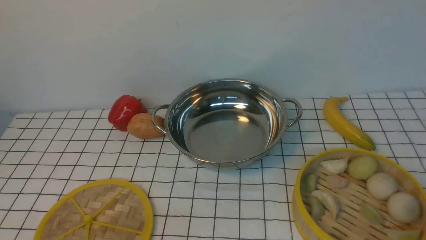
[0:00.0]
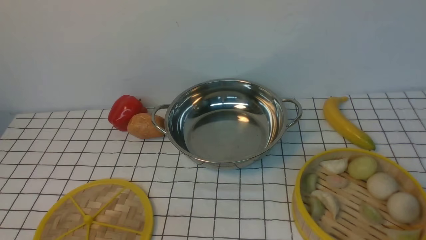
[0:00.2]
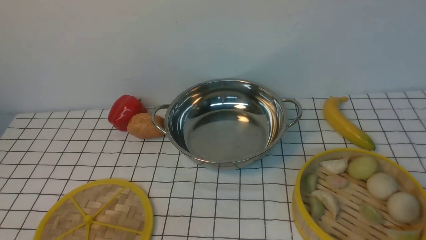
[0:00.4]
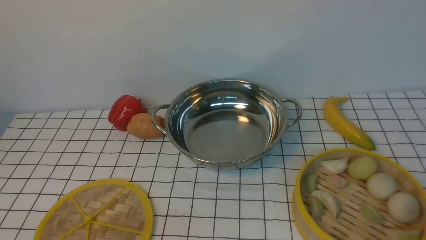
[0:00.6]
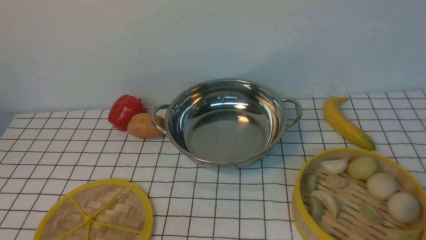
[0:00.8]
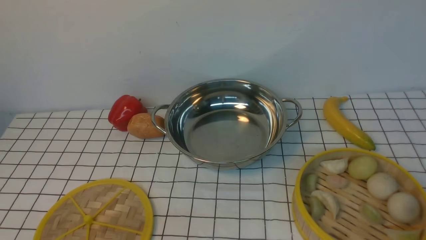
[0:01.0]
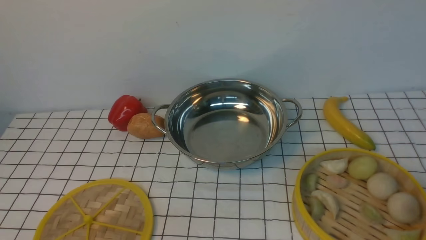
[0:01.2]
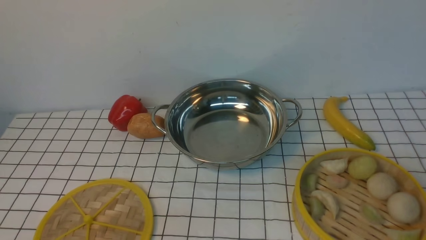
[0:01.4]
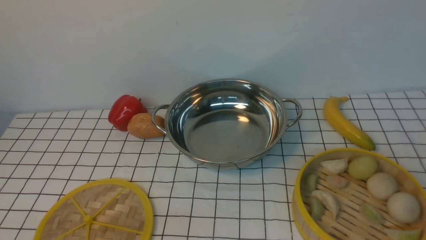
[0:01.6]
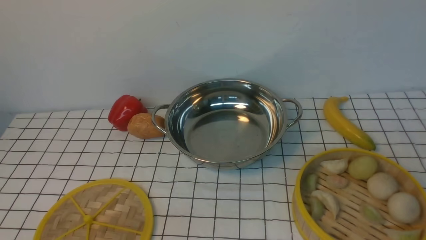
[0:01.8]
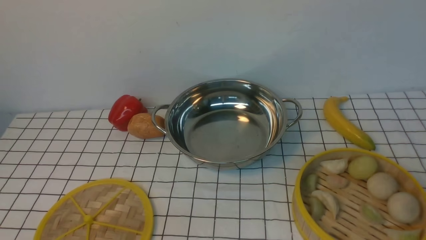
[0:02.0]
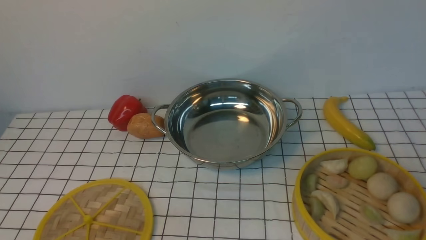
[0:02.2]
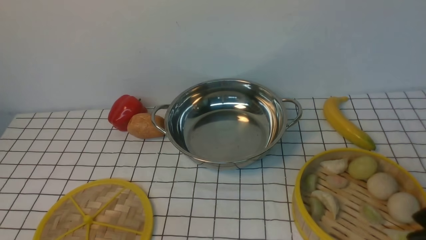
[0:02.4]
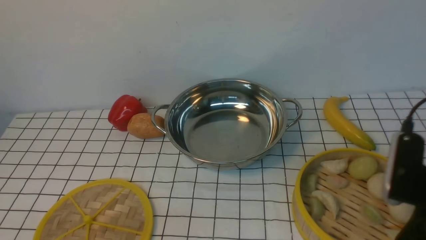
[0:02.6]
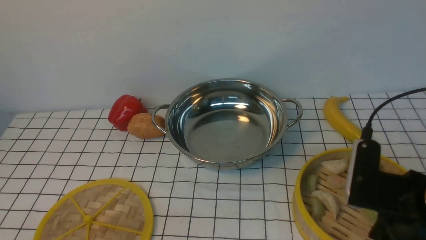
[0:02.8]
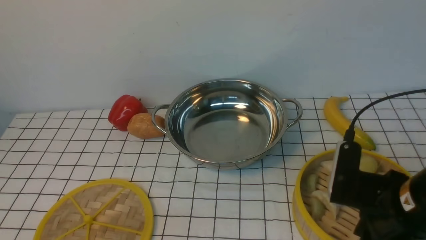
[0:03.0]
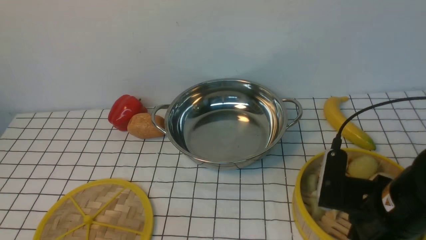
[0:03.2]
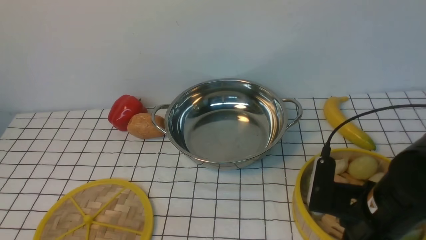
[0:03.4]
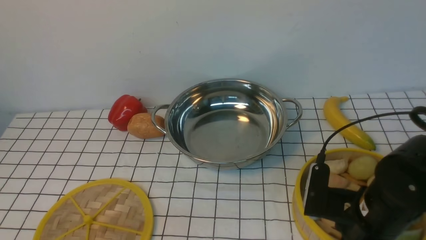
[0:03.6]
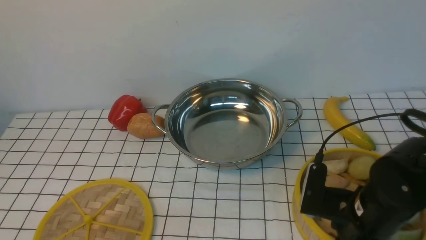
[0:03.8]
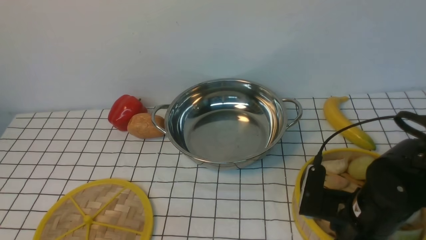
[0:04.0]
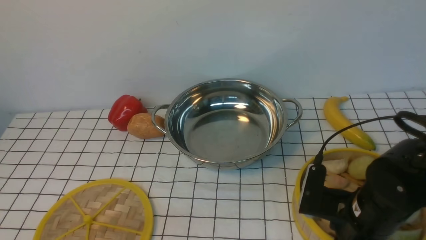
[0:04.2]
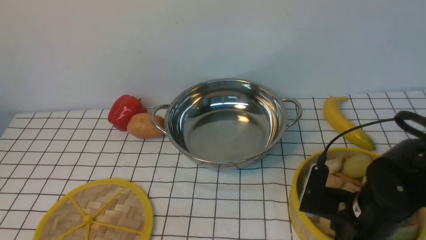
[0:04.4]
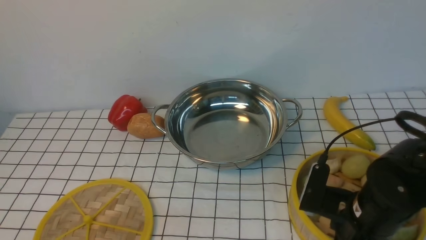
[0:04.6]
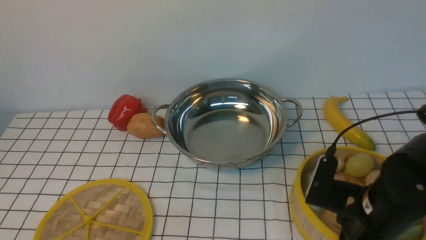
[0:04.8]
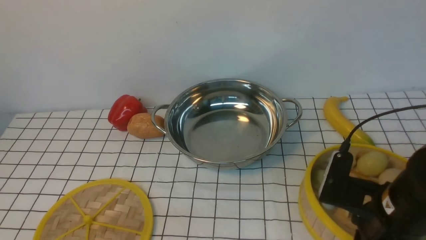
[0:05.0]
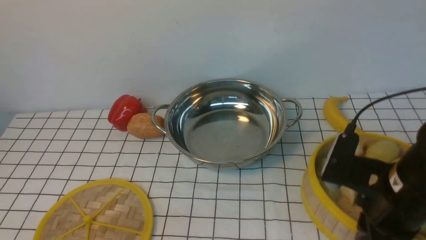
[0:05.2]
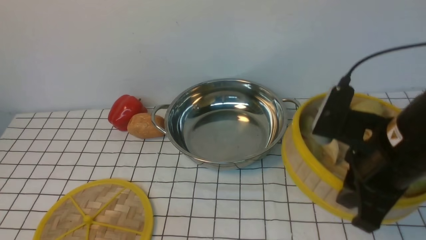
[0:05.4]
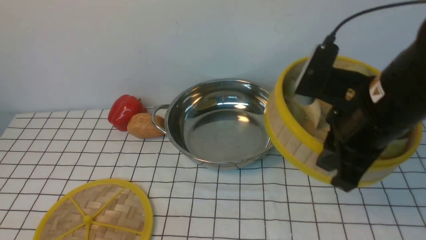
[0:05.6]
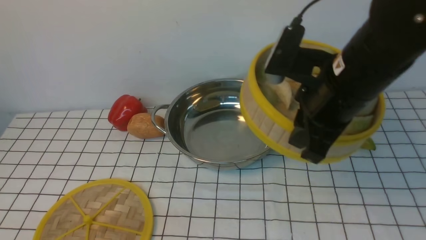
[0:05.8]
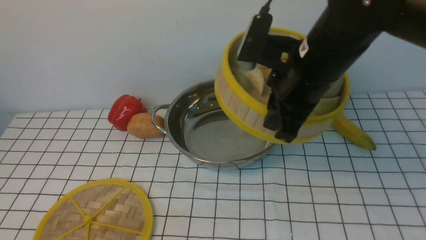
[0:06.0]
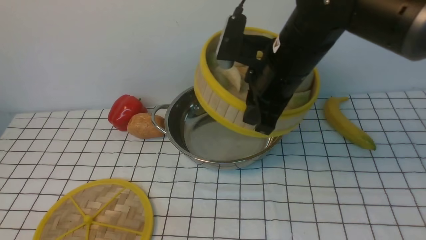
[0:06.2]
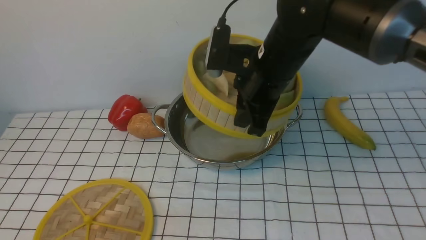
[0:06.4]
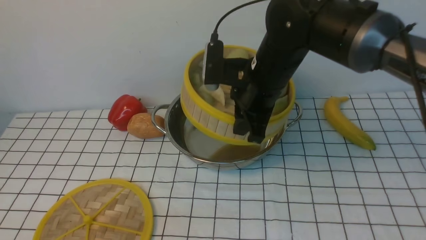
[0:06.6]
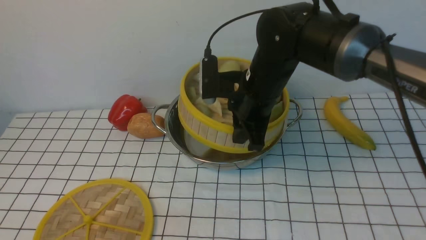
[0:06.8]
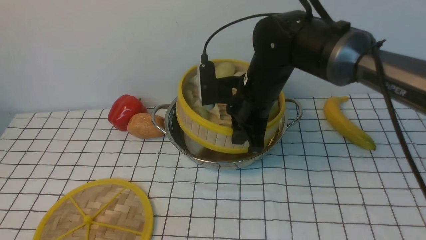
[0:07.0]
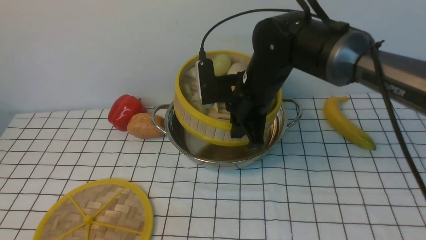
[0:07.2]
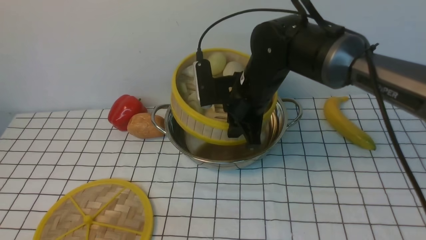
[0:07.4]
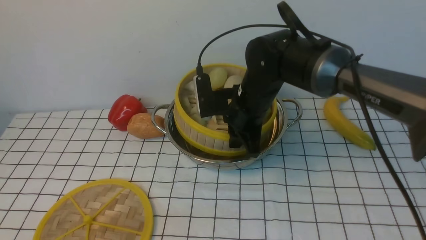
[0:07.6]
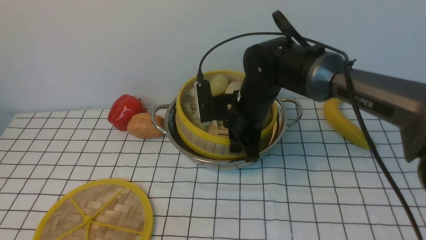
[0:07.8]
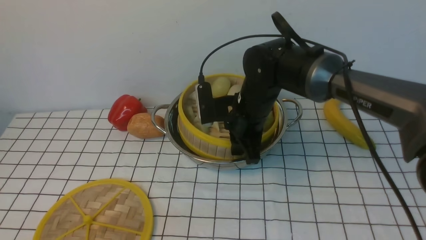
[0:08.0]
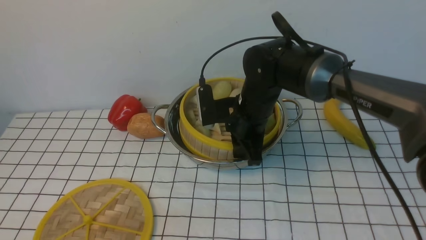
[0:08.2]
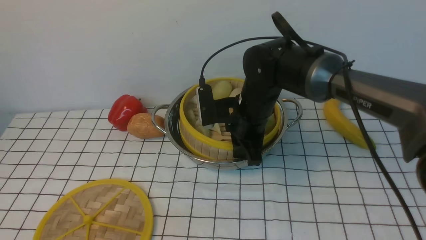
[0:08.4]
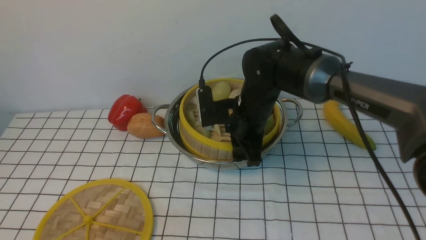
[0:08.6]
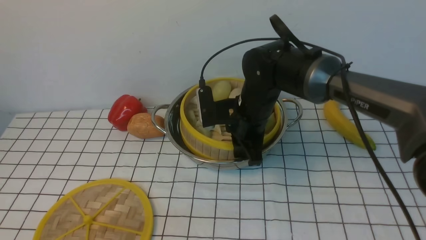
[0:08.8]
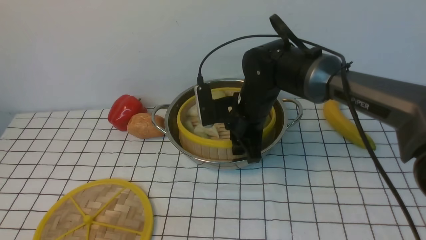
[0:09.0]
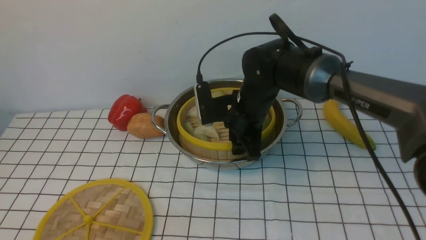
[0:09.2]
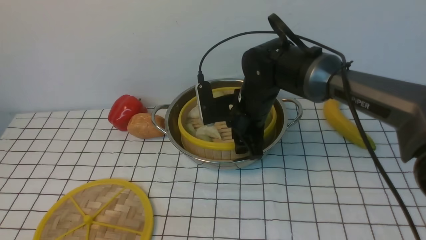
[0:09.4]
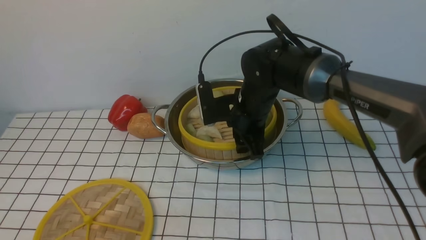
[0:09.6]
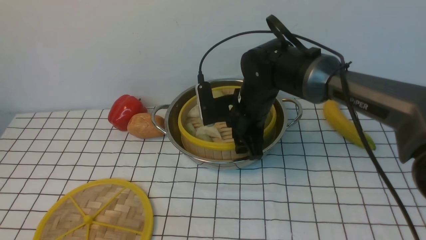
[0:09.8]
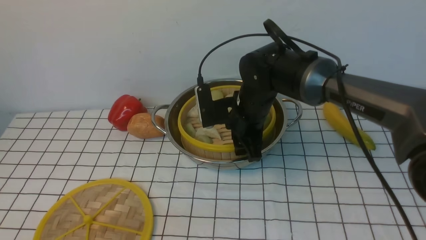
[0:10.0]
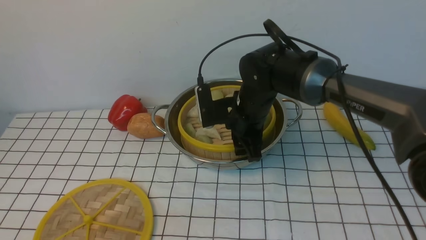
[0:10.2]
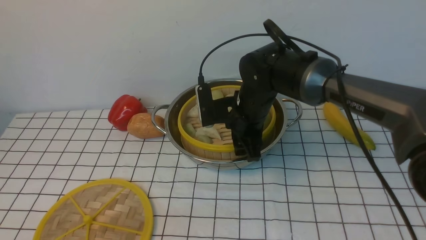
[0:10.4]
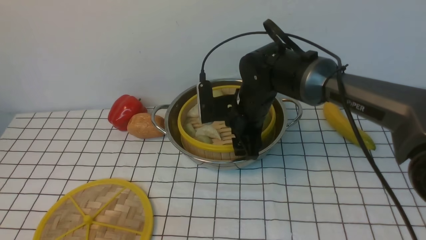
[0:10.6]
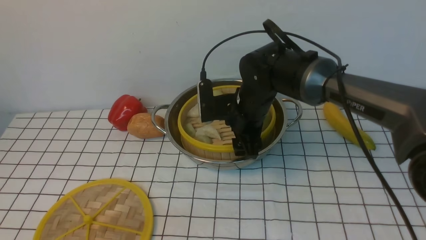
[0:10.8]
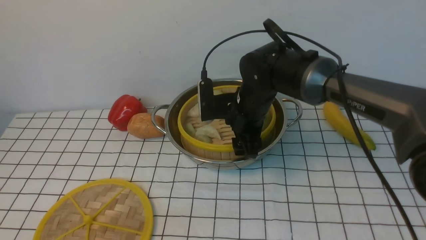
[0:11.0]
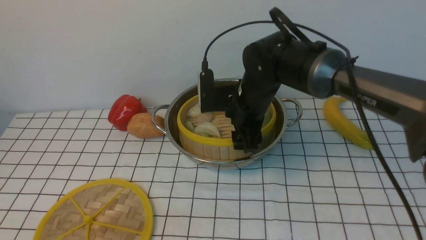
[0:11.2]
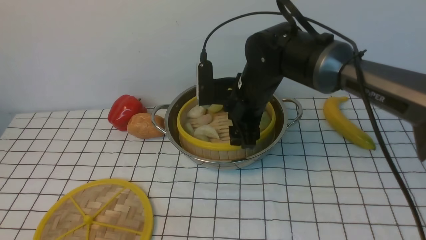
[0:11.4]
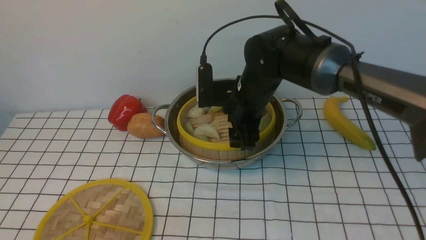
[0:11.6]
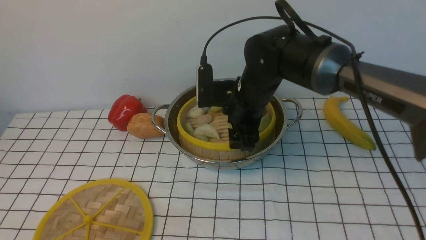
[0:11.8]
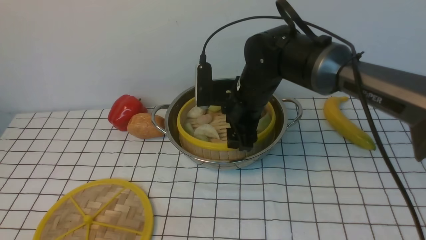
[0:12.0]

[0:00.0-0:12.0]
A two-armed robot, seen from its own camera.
Task of the whole recording: place the steamer in the pot on the white tablecloth, and put the lid on the steamer.
Step, 0.0 to 5.0 s: use the right arm to lift the steamer closest to it.
1.6 to 3.0 s: The right gripper moves forward, to the left and downward, about 15 cm.
3.0 to 4.4 s: The right gripper shifts approximately 5 cm downward.
4.4 to 6.0 s: The right gripper moves upward, forward and to the left, approximately 20 cm.
6.0 to 7.6 s: The right gripper goes approximately 15 cm downward, forward and to the left.
7.6 to 9.0 s: The grippers move only a little.
9.0 to 10.4 s: The right gripper opens its fingers.
10.4 to 12.0 s: There are only small adjustments of the grippers.

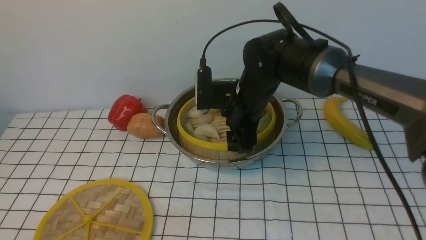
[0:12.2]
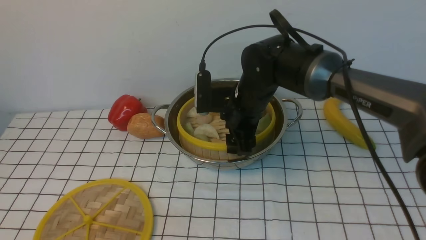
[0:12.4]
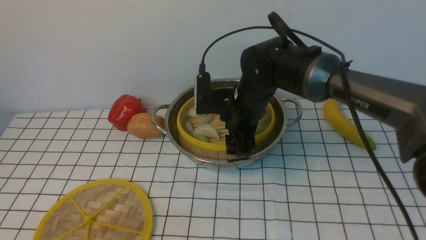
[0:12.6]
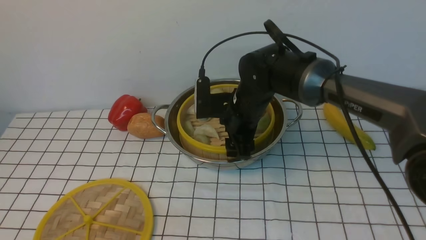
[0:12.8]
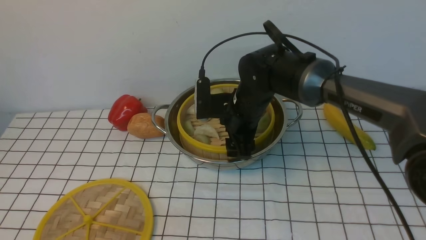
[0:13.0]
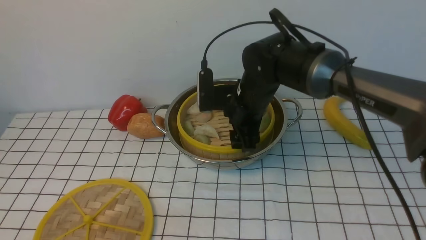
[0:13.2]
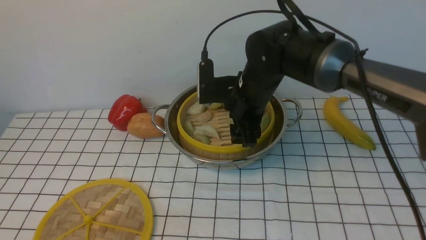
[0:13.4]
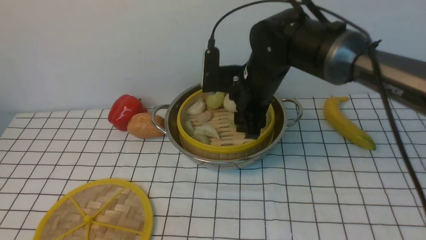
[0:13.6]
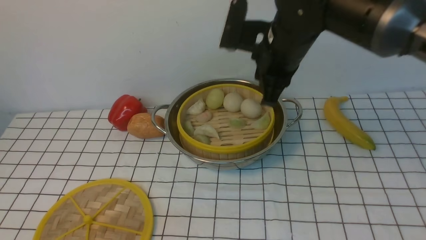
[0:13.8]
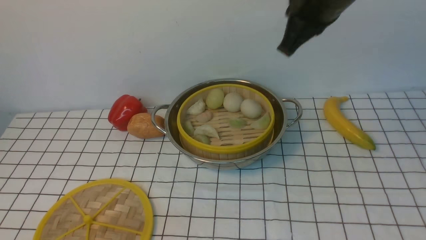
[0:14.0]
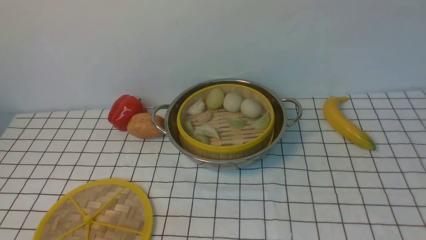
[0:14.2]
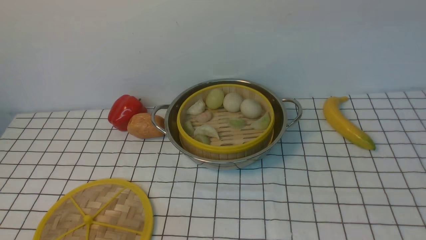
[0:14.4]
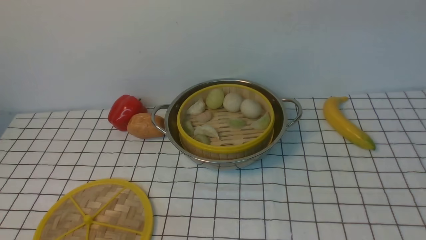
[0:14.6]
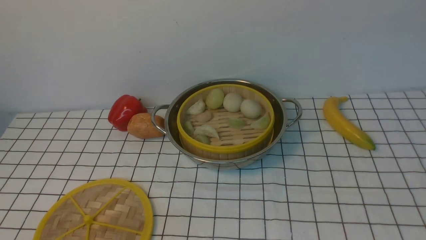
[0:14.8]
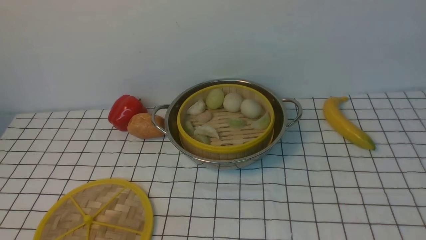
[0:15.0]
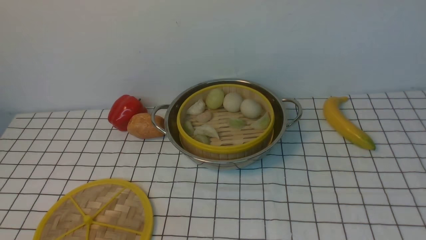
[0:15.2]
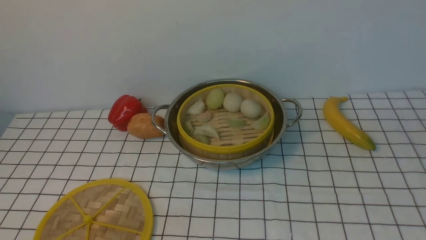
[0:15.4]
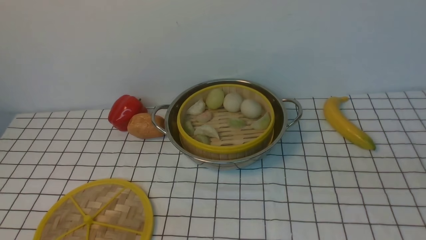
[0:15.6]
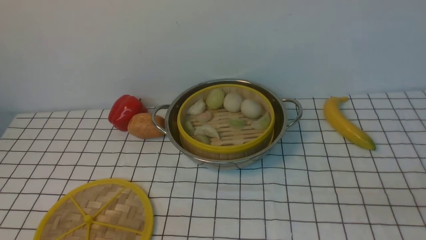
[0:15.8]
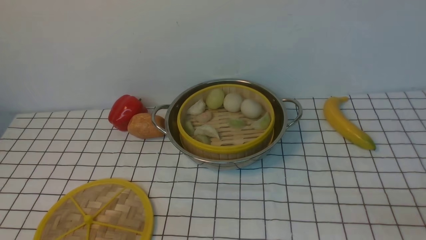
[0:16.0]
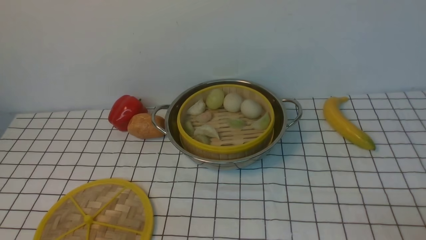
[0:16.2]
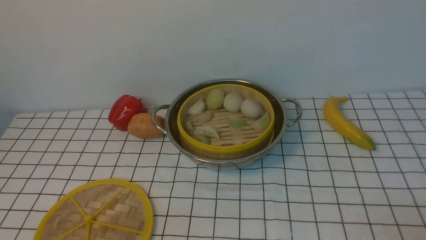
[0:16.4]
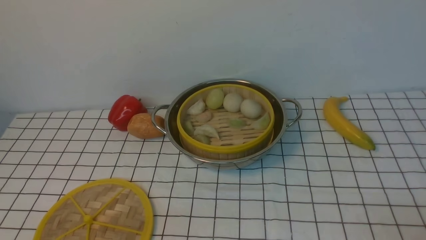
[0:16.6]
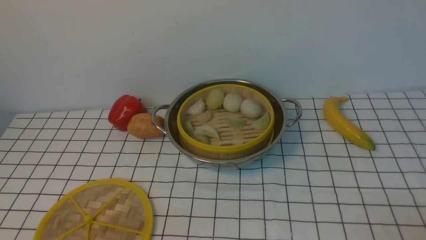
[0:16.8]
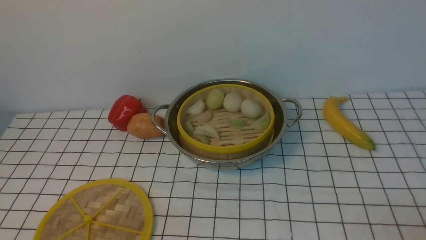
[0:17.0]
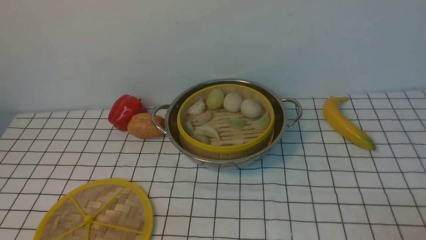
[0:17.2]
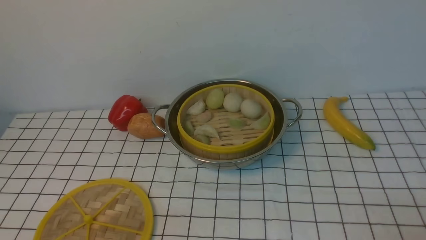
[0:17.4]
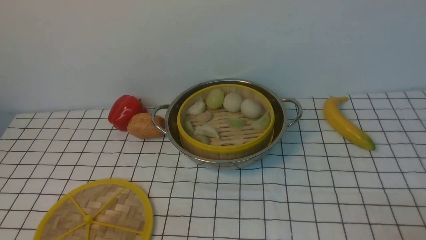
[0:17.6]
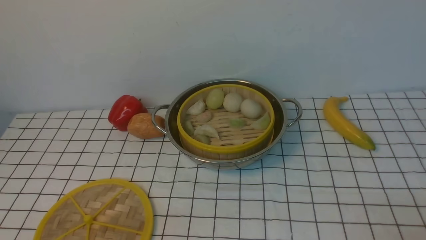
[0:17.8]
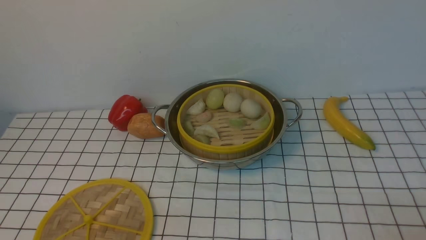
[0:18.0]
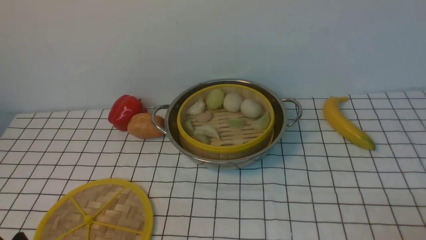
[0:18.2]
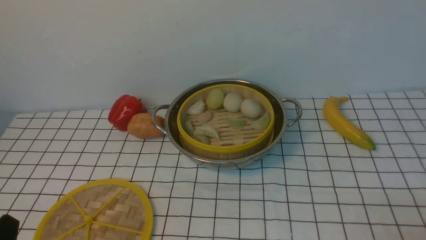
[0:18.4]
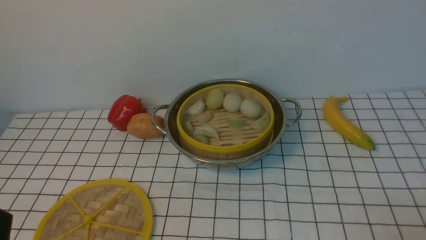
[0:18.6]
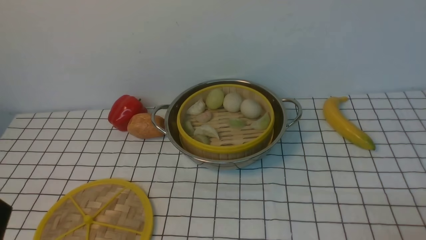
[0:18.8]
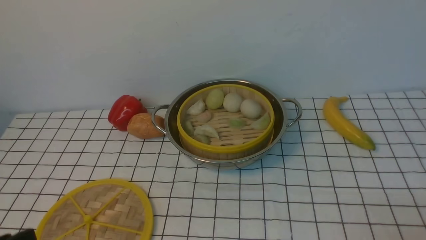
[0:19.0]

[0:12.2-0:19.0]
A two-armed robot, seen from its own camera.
Task of the whole recording: place the steamer in the pot on the white tablecloth, and put the lid on the steamer.
12.2 to 13.6 s: The right gripper goes roughly 5 cm upward.
13.6 to 15.0 s: The right gripper heads backward, to the right and upward, covering roughly 35 cm, and closes.
